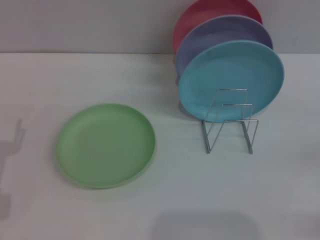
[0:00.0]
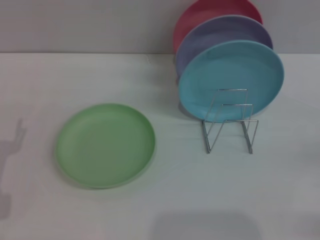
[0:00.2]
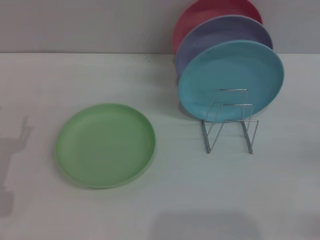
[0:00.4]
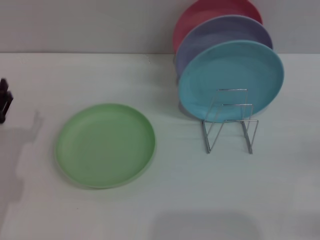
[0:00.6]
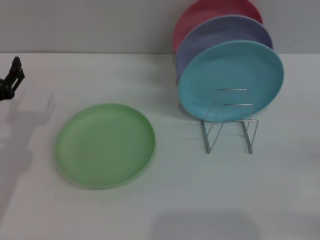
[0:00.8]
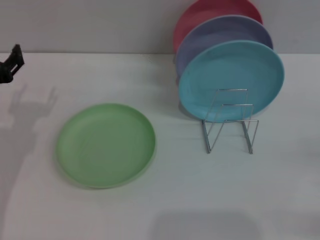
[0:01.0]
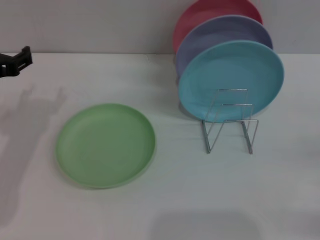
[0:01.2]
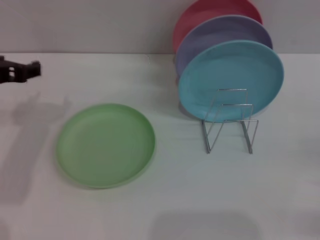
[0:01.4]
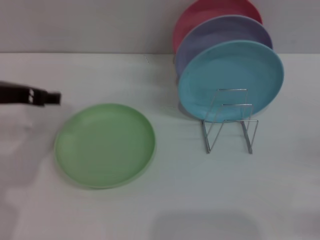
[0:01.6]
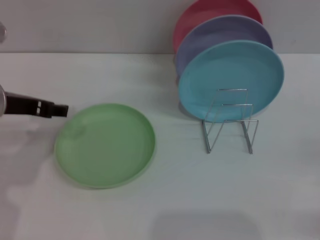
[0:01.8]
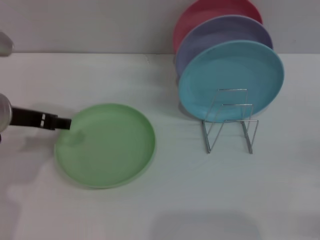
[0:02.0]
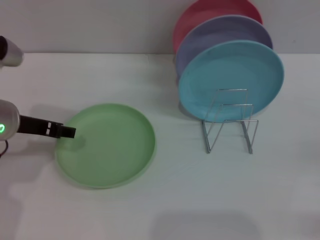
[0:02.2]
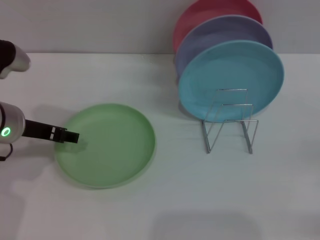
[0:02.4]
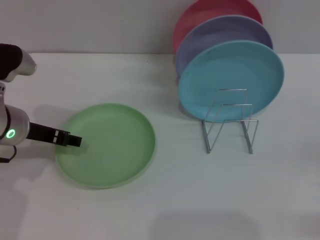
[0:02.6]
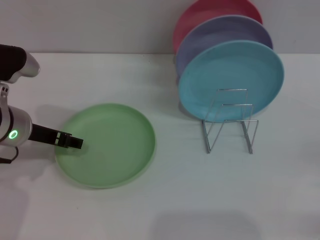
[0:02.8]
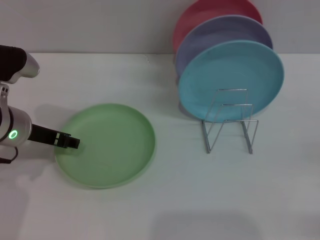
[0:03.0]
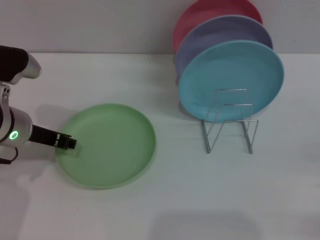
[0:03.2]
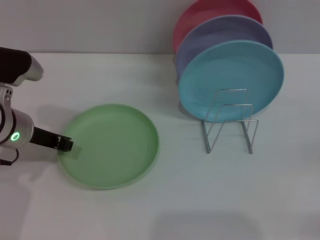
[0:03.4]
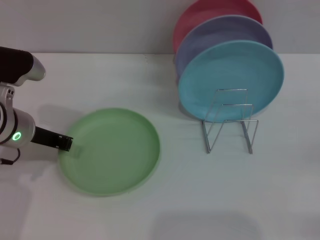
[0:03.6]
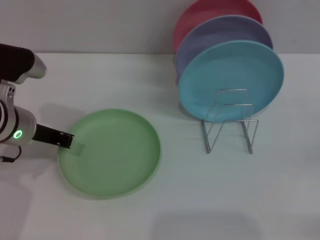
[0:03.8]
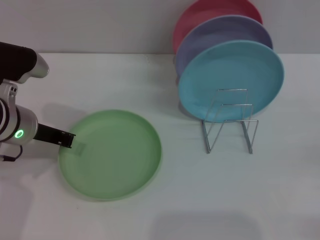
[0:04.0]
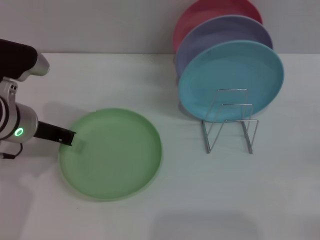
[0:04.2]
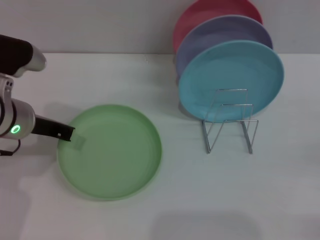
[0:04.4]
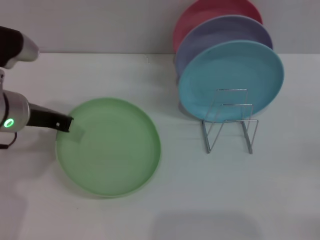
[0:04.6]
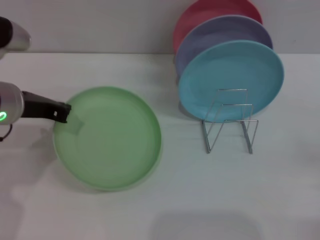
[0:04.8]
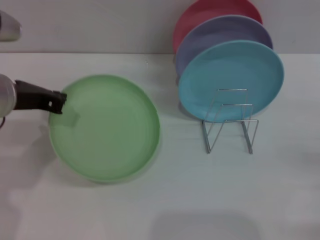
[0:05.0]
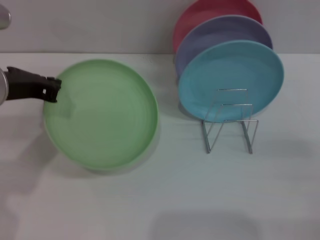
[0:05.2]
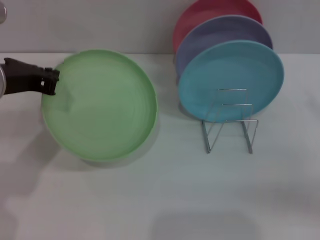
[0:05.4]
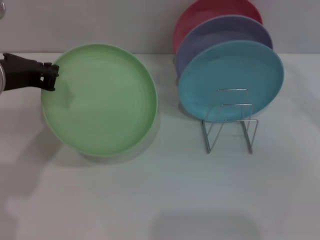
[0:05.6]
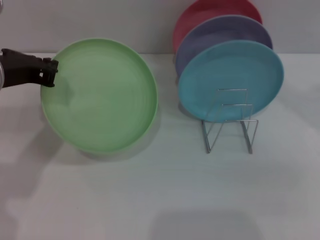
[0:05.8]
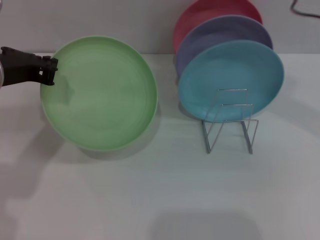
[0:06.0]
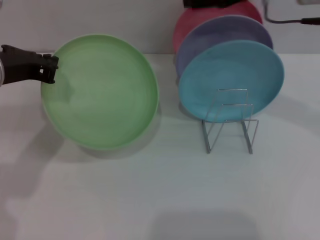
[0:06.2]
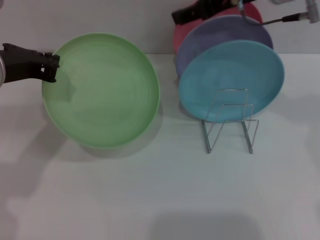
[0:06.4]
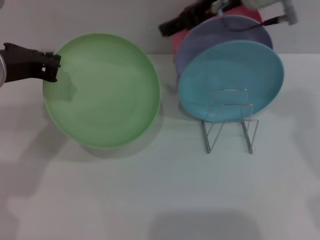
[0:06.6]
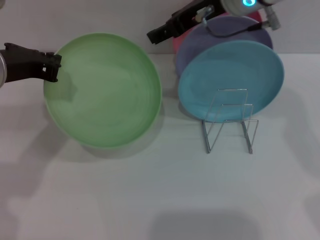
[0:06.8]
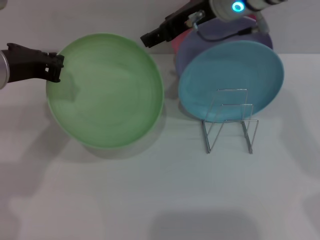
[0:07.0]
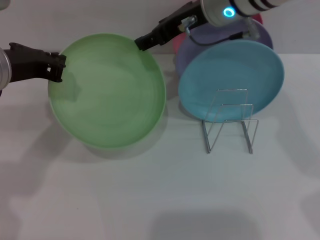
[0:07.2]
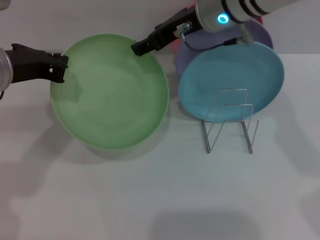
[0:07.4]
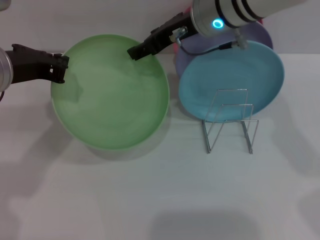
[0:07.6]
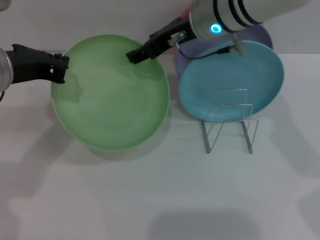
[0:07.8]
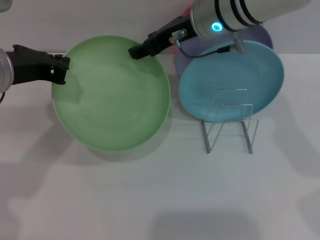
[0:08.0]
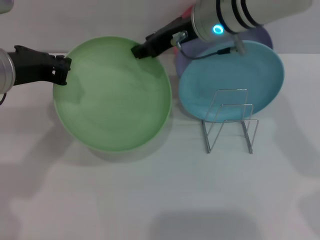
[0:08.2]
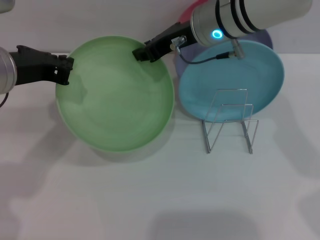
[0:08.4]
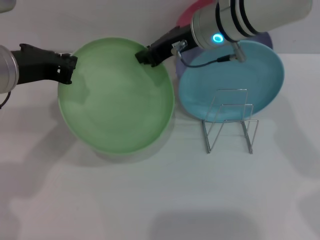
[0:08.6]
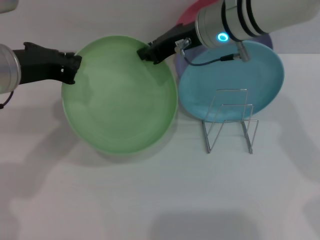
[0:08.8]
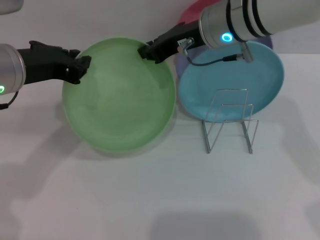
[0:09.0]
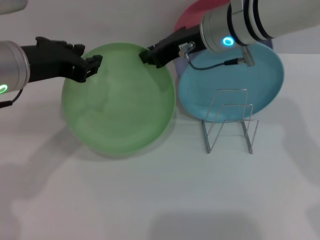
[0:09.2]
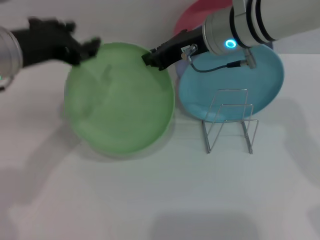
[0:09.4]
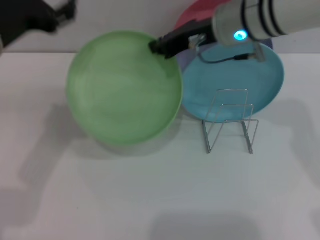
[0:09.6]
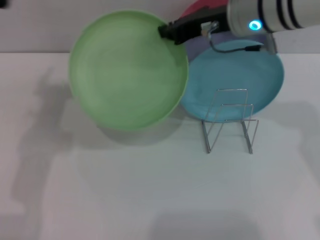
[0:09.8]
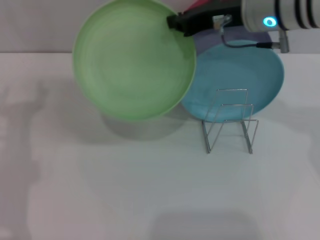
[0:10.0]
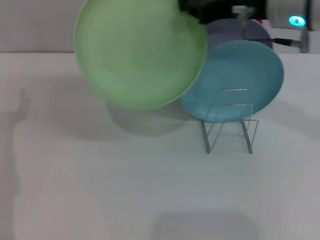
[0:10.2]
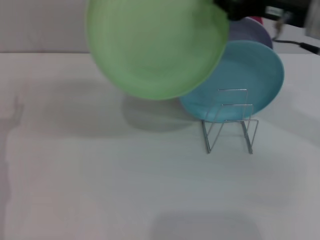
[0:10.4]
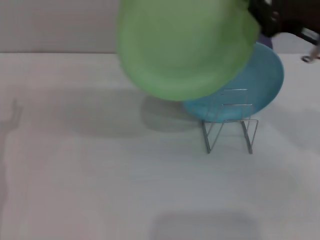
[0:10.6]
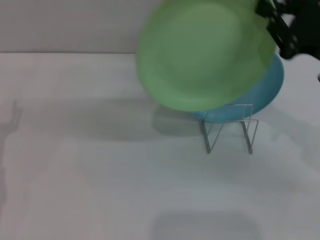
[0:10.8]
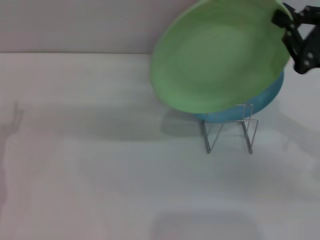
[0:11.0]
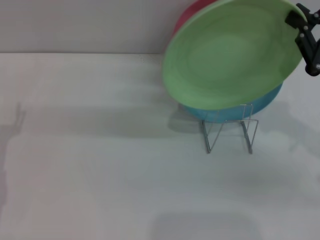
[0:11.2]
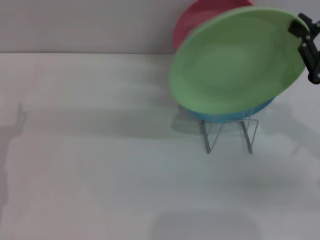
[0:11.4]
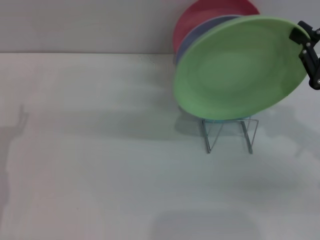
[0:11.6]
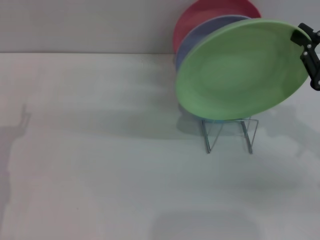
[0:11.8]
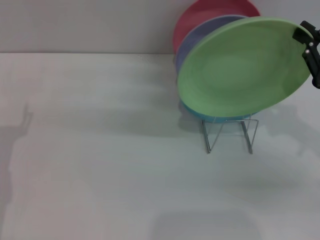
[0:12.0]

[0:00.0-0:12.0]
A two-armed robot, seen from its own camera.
Task of the whole recording: Grip the plate with one hand, pass it to the other, then set it on the shelf.
Step, 0:00.0 to 0:05.4: Pick up the plate with the left gripper.
Step, 0:05.6 to 0:10.0: Pass the plate from the left gripper to the right gripper.
0:00.0 to 0:01.6: The left gripper moves upward, forward and to the right, approximately 20 cm.
0:01.6 to 0:03.0: The left gripper is displaced downward by some 5 cm.
0:03.0 to 0:04.4: The left gripper closes.
0:04.4 to 0:06.0: The left gripper is displaced upward by approximately 10 cm, while the right gripper goes approximately 35 cm upward, forward and to the left.
0:06.0 to 0:07.6: The right gripper moves to the left and forward, some 15 cm.
0:07.6 to 0:09.0: The right gripper closes.
0:09.0 to 0:10.4: The right gripper shifts approximately 15 cm to the right and backward, while the left gripper goes some 15 cm downward, to the left and backward, and opens its fingers.
0:10.4 to 0:12.0: The right gripper heads to the right, downward and backward, covering roughly 15 cm.

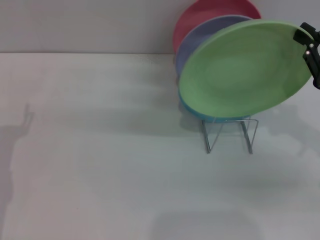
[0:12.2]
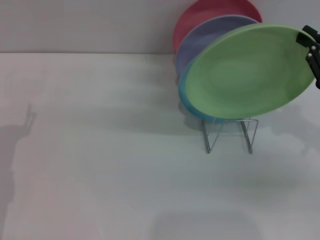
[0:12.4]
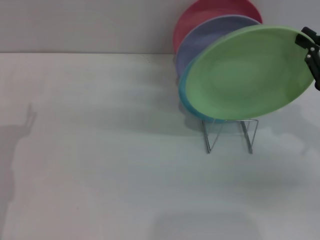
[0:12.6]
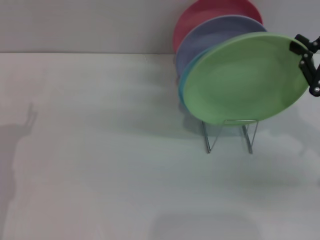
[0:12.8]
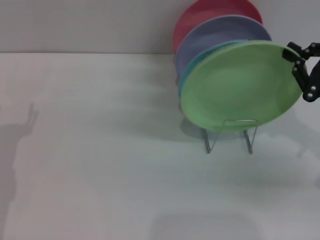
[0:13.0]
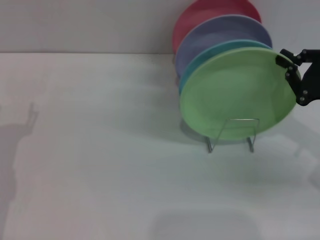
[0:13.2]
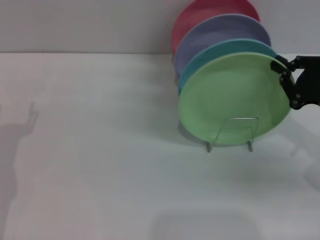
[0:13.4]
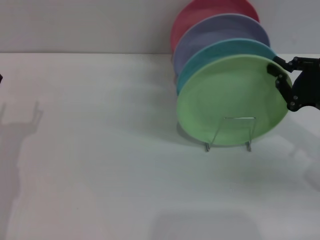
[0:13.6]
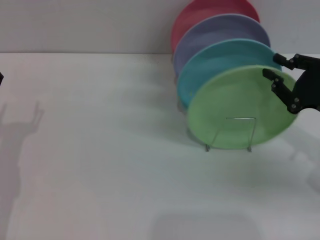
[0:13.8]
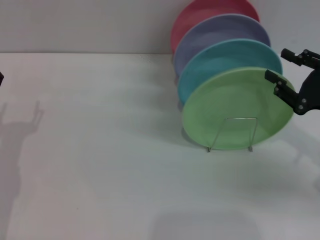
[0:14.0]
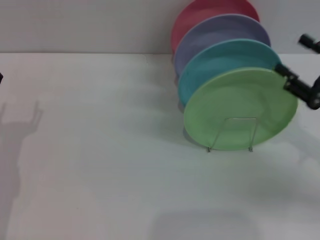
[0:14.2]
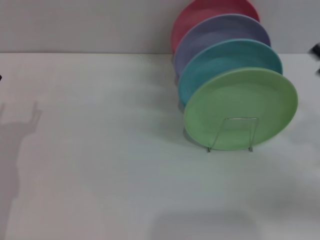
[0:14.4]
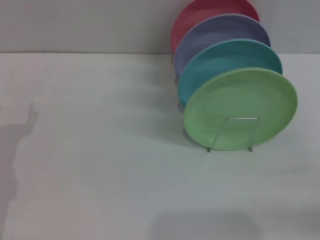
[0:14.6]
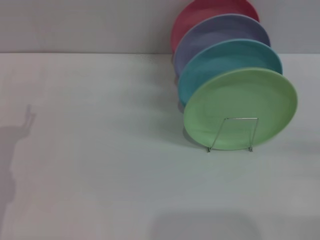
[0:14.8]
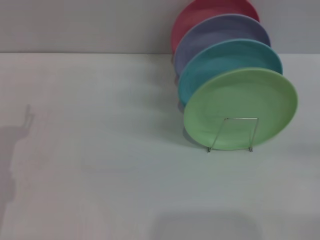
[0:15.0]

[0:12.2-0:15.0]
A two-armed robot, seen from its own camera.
Task of the whole recording: Grip the plate with one hand, pass it to the other, then set it on the shelf.
0:12.2 to 0:13.6: The right gripper ends up about 5 cm from where it was.
0:13.6 to 0:15.0: The right gripper heads to the right and backward, covering approximately 15 cm, and opens up.

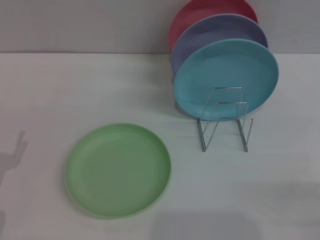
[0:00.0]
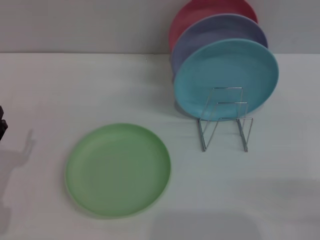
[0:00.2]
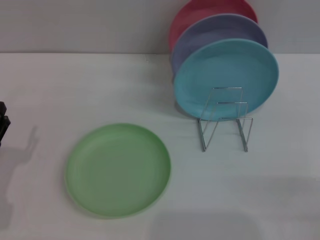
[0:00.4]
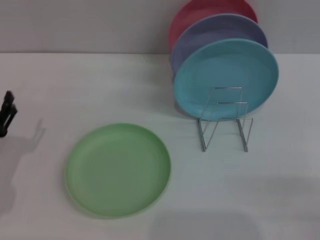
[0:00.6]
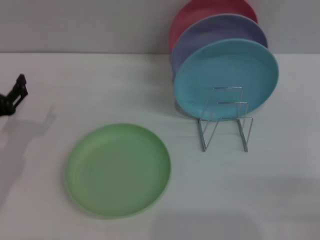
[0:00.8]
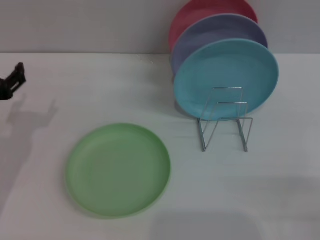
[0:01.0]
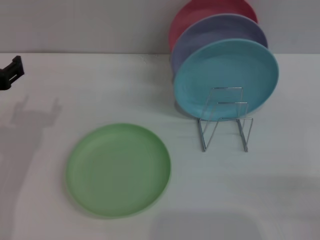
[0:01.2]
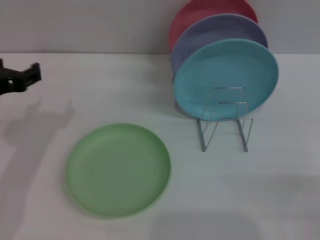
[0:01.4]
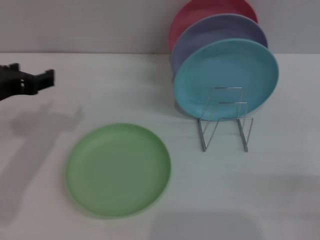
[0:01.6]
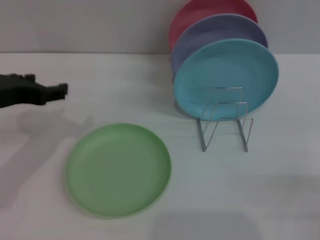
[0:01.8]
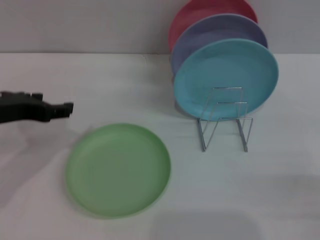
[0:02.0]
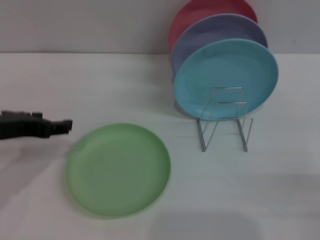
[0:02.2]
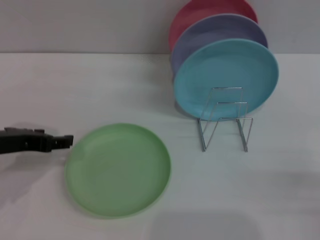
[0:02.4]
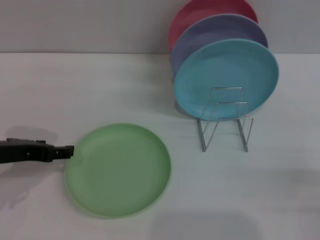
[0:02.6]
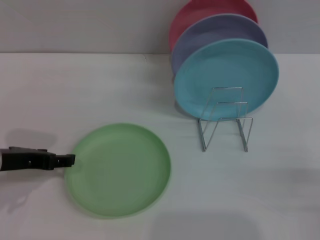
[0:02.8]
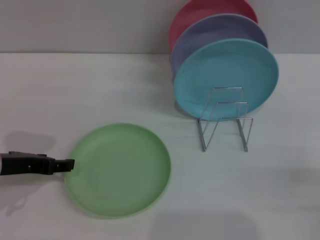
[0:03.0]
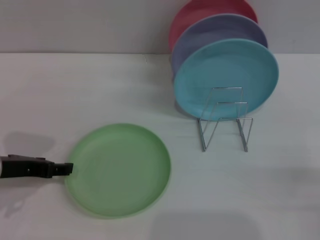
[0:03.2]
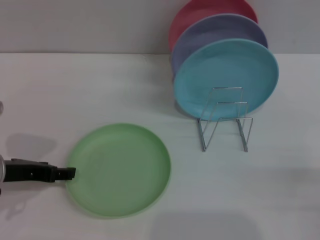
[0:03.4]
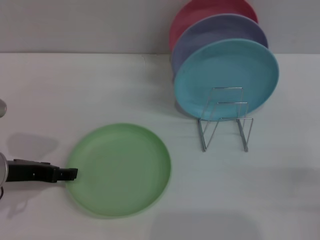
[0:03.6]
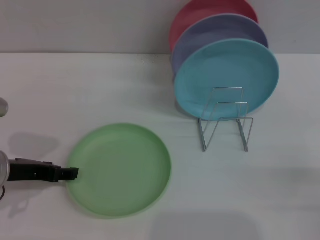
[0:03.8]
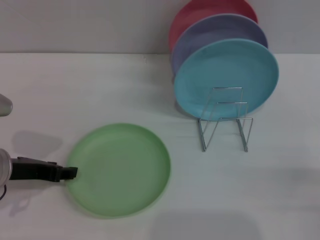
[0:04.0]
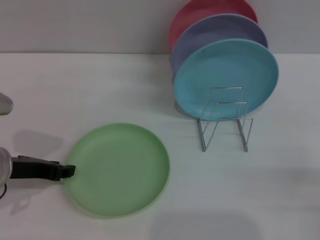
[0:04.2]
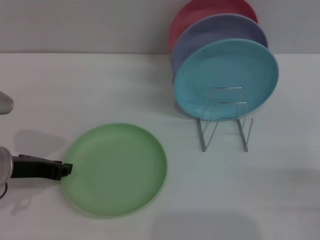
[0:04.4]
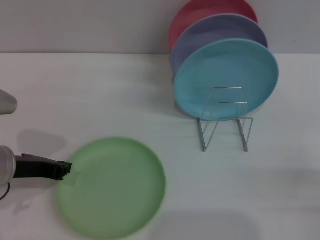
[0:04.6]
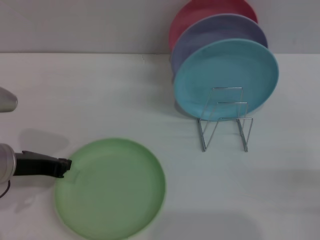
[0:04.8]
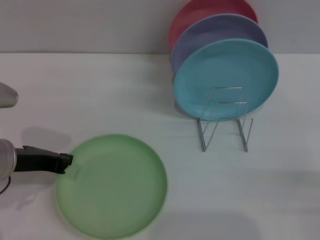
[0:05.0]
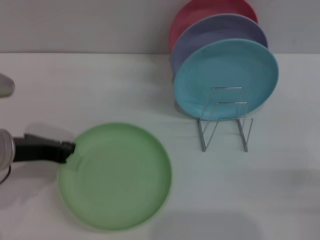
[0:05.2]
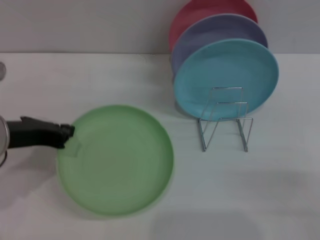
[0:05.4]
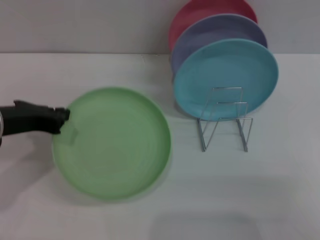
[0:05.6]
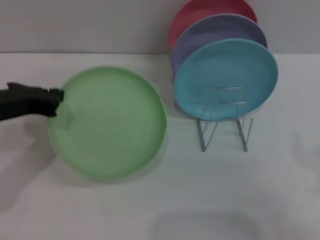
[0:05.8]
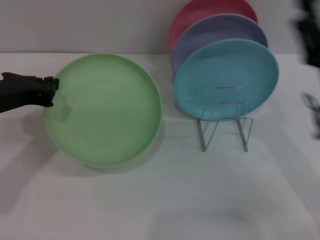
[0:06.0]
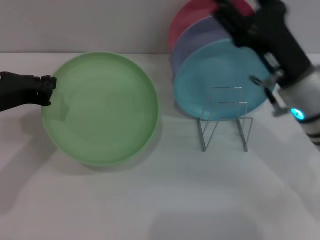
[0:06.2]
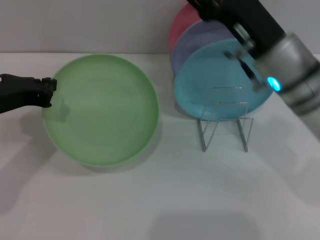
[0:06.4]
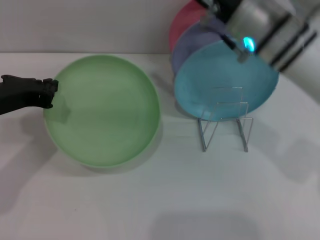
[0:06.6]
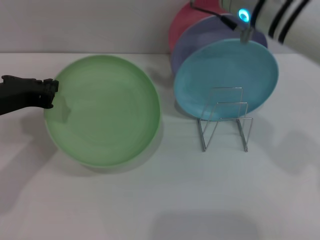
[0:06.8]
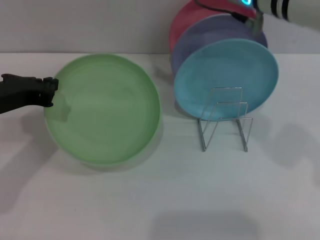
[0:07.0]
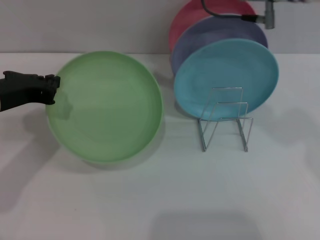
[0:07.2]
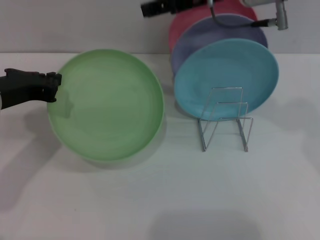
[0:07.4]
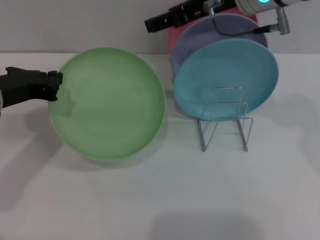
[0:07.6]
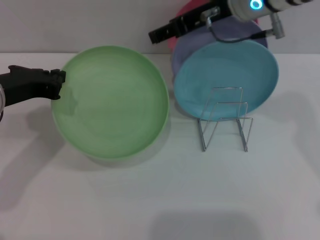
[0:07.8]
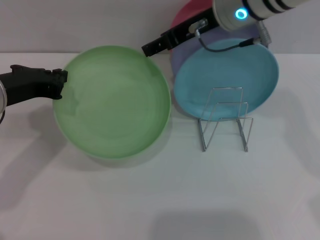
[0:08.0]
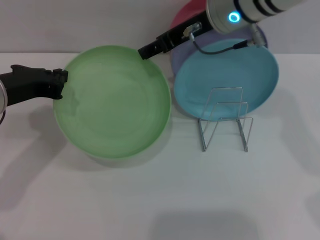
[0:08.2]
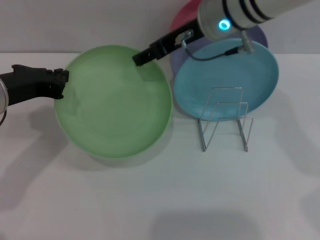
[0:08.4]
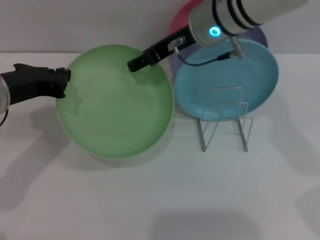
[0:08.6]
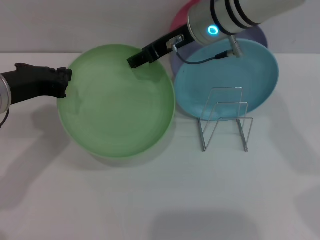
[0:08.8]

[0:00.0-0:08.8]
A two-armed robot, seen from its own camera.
Task of the whole recording: Grip the plate with one hand, pass it to the other, then set it on the shelf.
Step, 0:00.0 to 0:05.6: Pick up the plate with the left gripper.
0:00.0 to 0:01.4: The left gripper shifts roughly 20 cm upward and forward.
0:01.4 to 0:03.0: The left gripper goes roughly 5 cm downward.
0:03.0 to 0:04.4: The left gripper closes up.
0:04.4 to 0:05.8: The right gripper is displaced to the left and upward by approximately 10 cm, while the left gripper shifts approximately 5 cm upward, and closes its fingers.
0:05.8 to 0:07.4: The right gripper travels forward, upward and to the left by roughly 30 cm.
0:07.4 to 0:08.8: The right gripper shifts roughly 5 cm downward.
